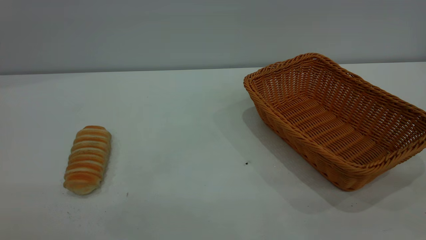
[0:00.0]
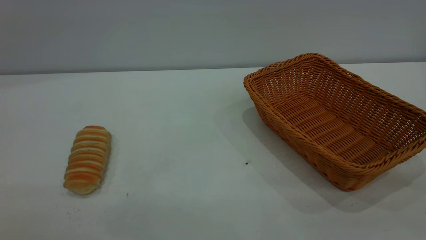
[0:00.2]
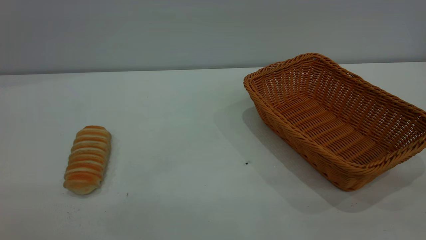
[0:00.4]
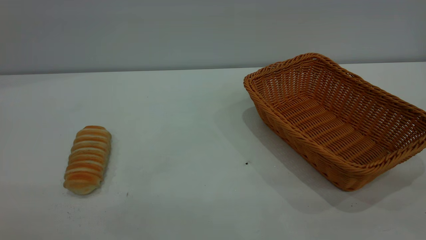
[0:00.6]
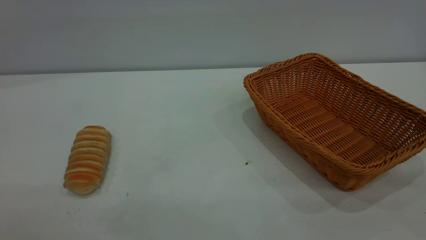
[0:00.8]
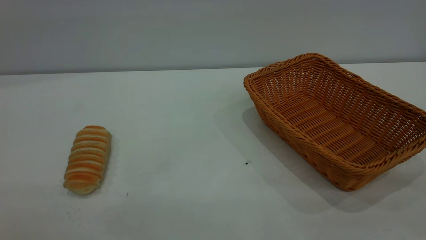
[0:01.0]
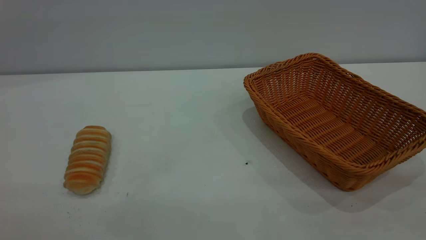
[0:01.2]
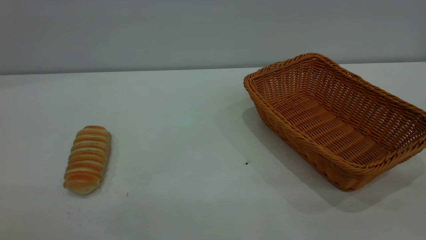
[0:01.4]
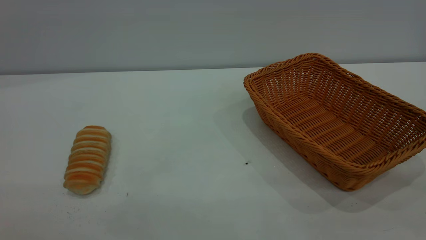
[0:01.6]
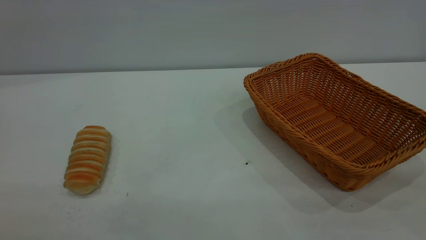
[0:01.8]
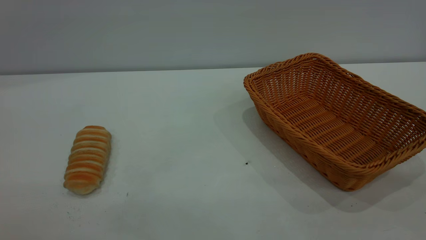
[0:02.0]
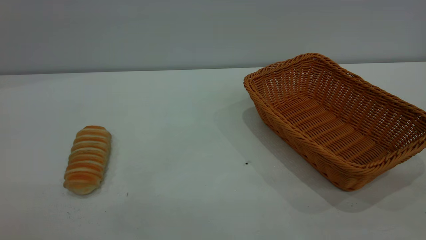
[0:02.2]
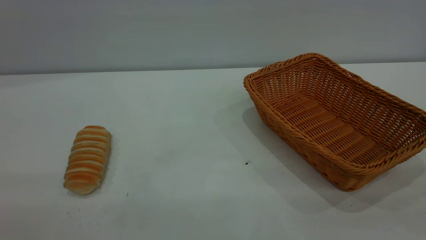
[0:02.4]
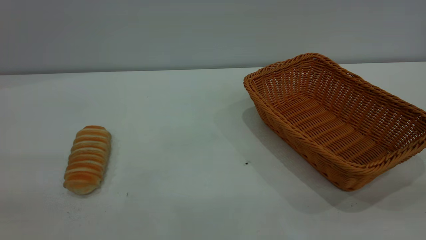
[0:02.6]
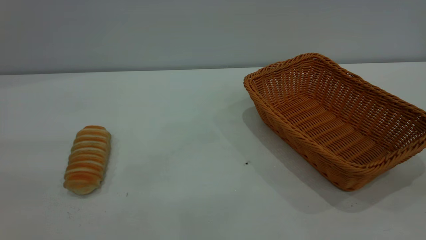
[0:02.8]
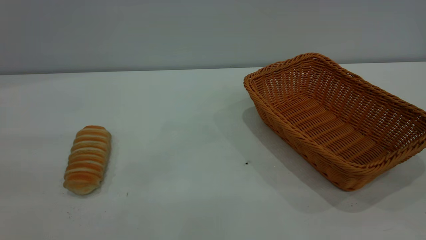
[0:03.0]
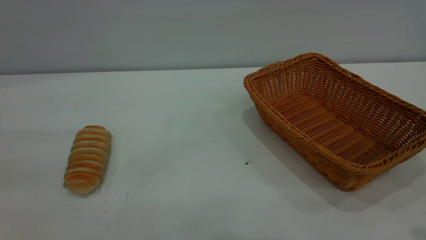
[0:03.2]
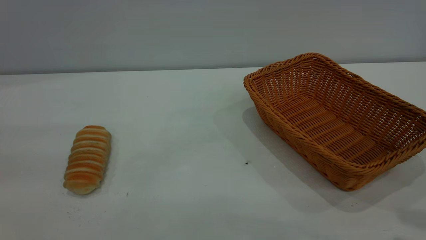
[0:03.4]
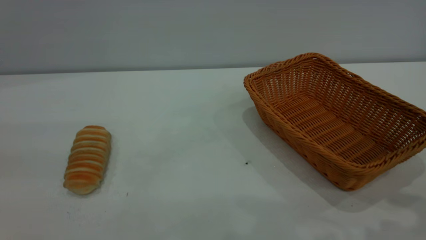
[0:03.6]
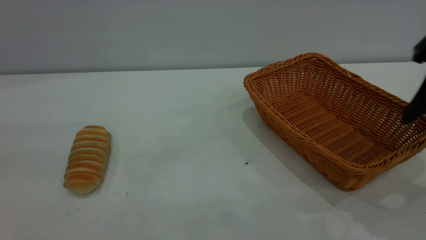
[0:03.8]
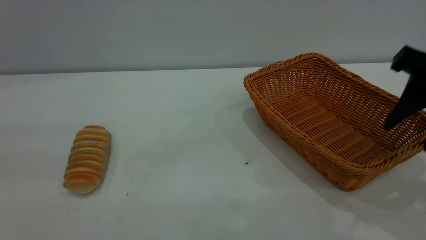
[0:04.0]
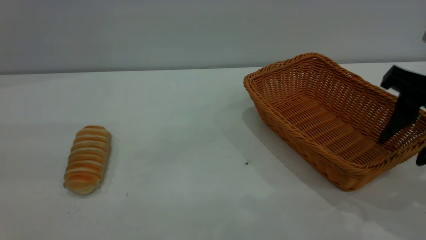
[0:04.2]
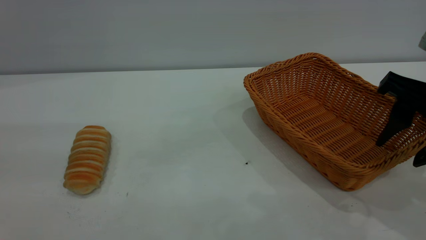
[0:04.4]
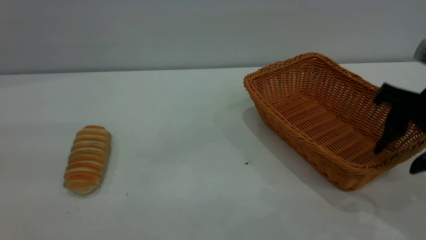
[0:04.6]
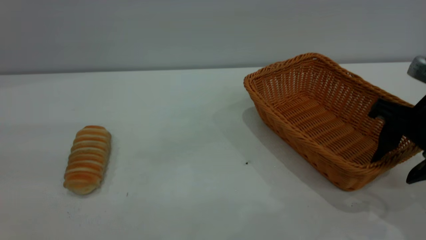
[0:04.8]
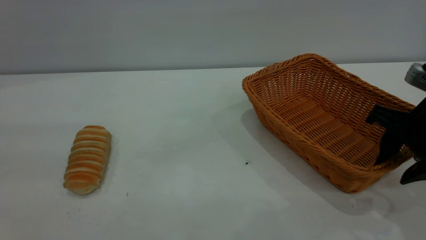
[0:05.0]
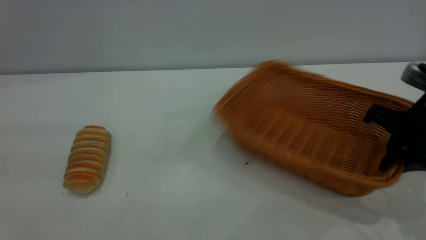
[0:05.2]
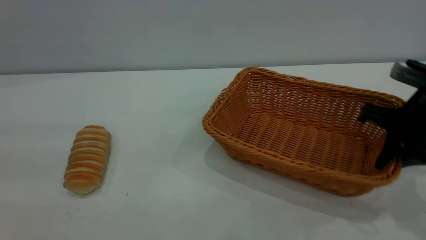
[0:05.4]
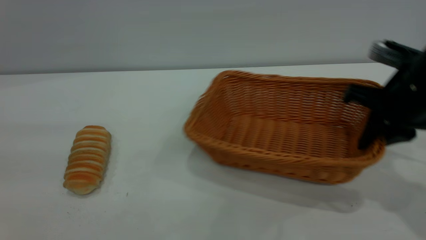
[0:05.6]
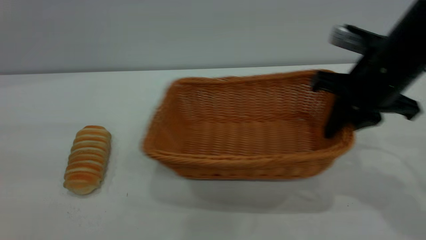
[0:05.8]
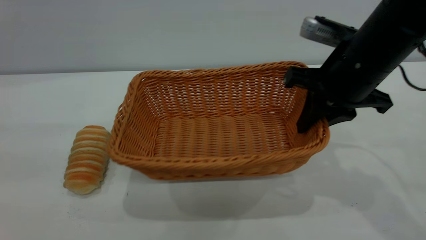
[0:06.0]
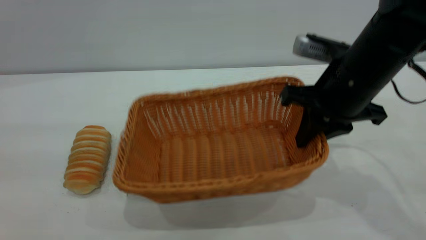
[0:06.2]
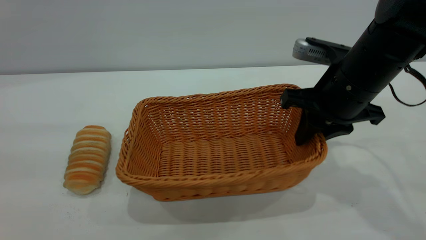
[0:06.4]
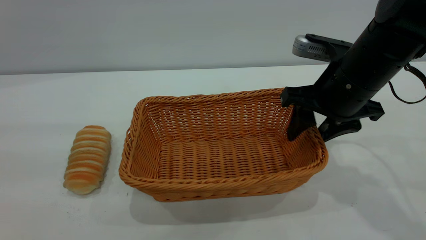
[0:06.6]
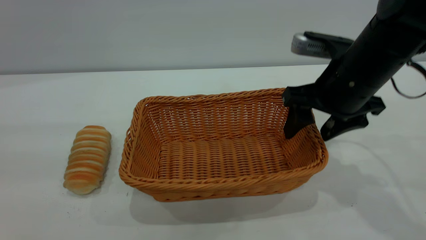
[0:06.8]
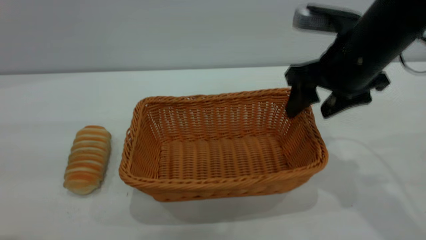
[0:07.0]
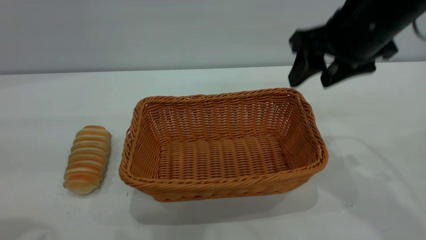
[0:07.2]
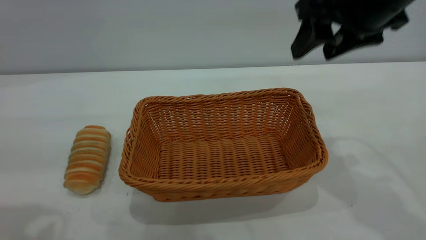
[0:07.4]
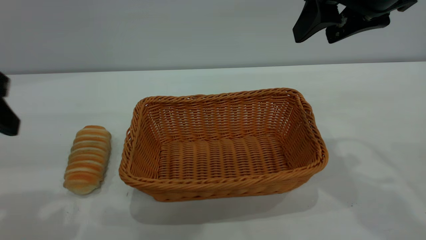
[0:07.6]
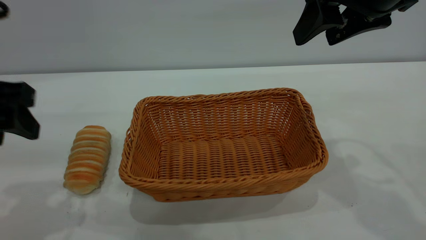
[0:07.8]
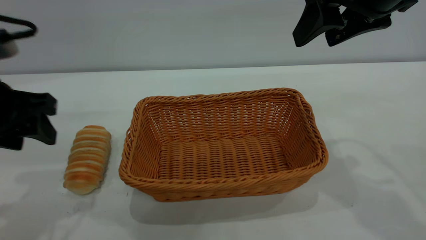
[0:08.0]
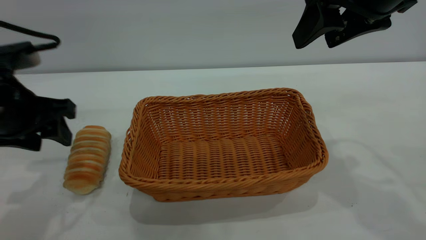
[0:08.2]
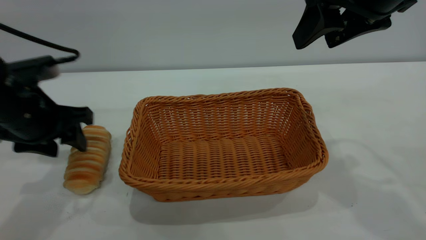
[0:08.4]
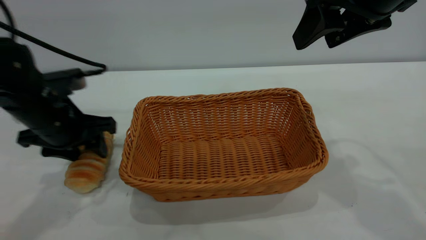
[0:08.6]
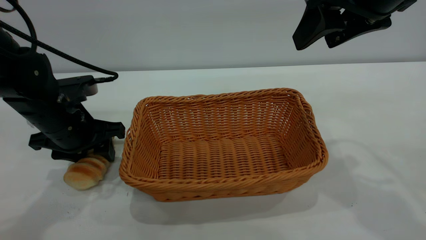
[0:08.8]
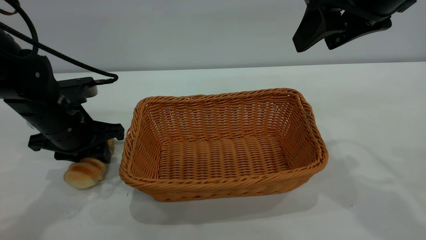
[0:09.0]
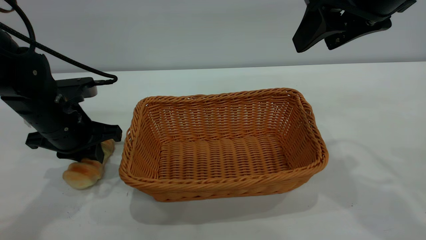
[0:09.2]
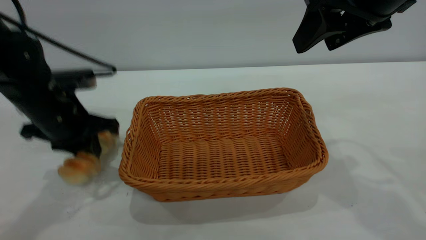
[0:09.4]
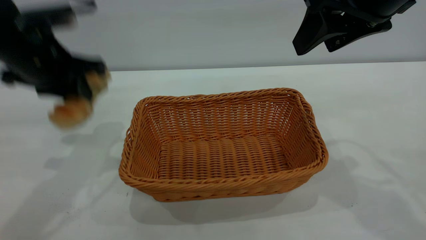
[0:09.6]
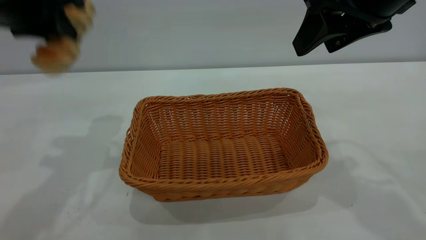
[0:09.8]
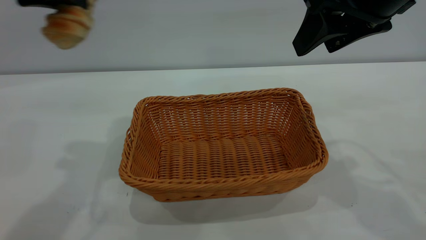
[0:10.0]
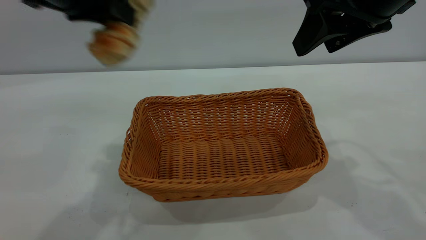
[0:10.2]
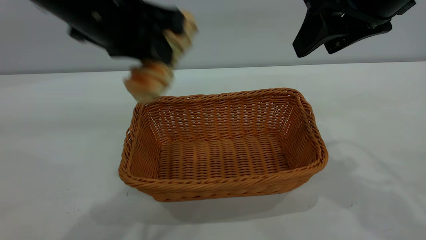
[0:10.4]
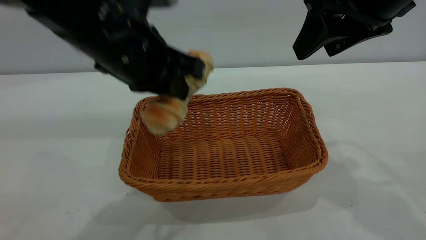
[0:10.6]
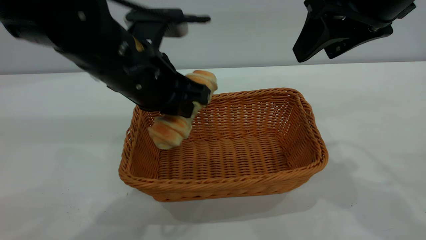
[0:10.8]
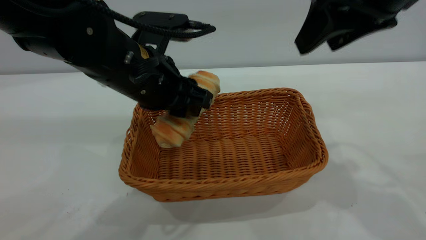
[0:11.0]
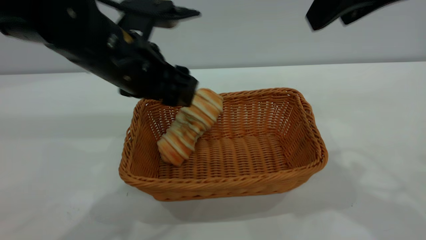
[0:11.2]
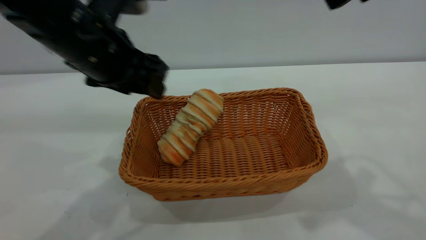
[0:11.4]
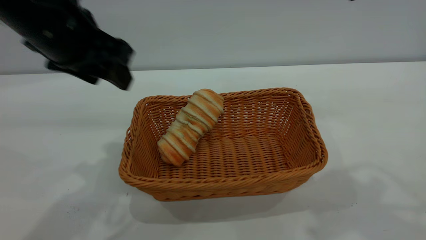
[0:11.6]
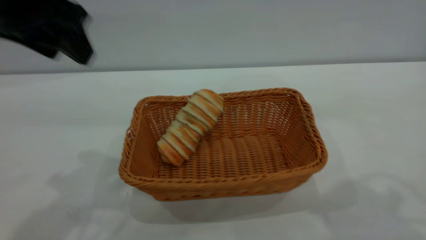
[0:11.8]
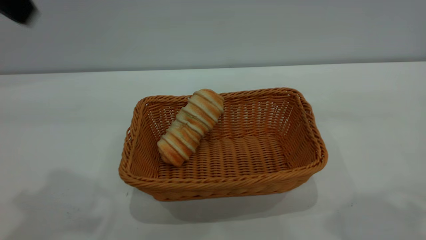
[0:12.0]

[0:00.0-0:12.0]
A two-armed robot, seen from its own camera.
Task of the whole recording: One hand grasps the yellow basket and places it in the middle of the table, while the other hand picks up the long bread and puts it into the yellow basket.
Step, 0:00.0 to 0:07.0: Move the basket to the center of view.
Step, 0:09.8 to 0:11.4: place the bread into the basket.
0:00.0 to 0:01.6: Neither gripper changes place.
0:03.0 to 0:04.4: The right gripper goes roughly 20 cm forward and downward.
0:04.4 to 0:06.0: The right gripper travels to the left and forward by some 10 cm, and closes.
0:06.0 to 0:07.6: The left gripper moves forward and downward, about 15 cm; the right gripper is displaced upward by approximately 10 cm, and opens up.
0:07.6 to 0:09.0: The left gripper moves downward and forward, roughly 20 cm, and closes its fingers.
0:09.0 to 0:10.4: The left gripper travels upward and to the right by some 20 cm, and closes its fingers.
0:10.4 to 0:12.0: The left gripper heads upward, to the left and backward, covering roughly 20 cm, and opens its fingers. Meanwhile the right gripper travels upward and backward by roughly 15 cm.

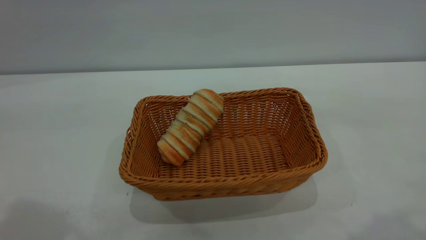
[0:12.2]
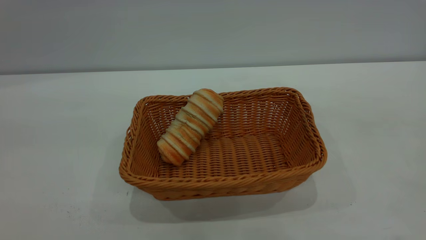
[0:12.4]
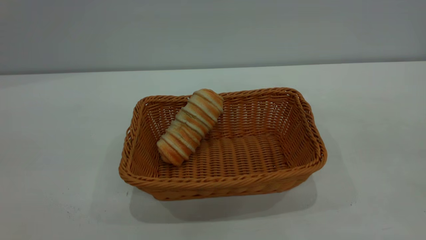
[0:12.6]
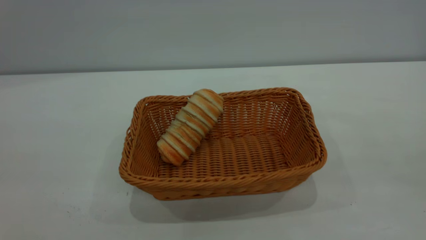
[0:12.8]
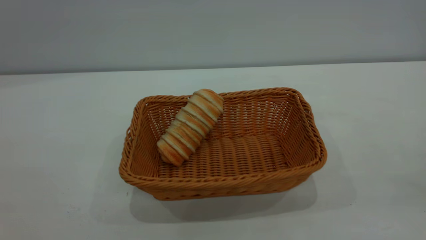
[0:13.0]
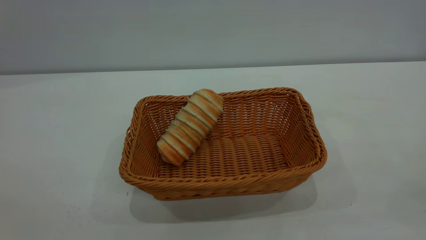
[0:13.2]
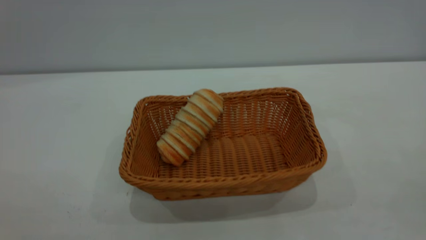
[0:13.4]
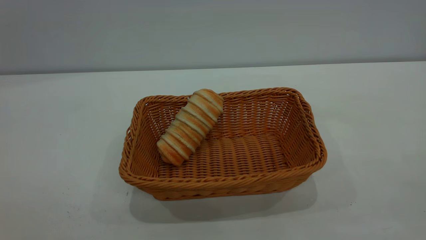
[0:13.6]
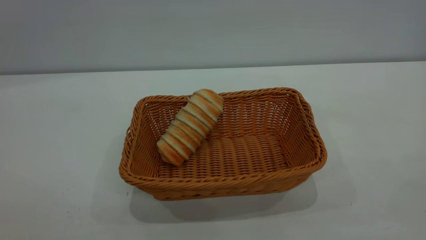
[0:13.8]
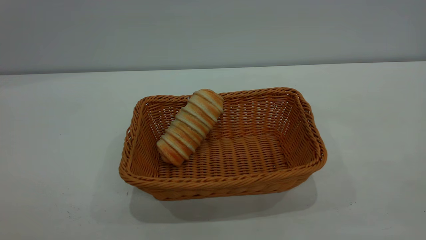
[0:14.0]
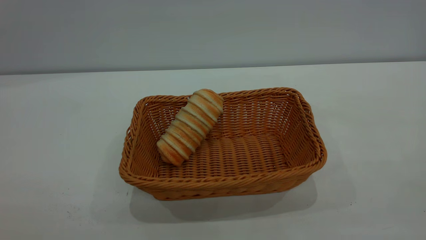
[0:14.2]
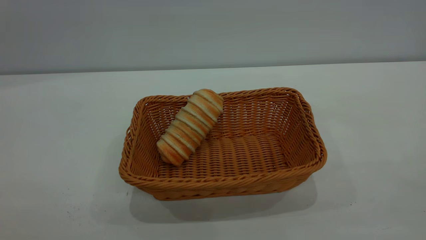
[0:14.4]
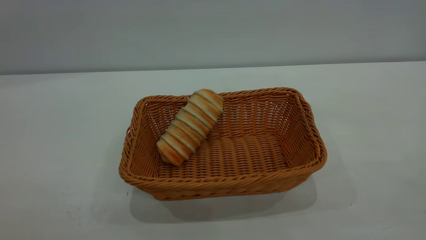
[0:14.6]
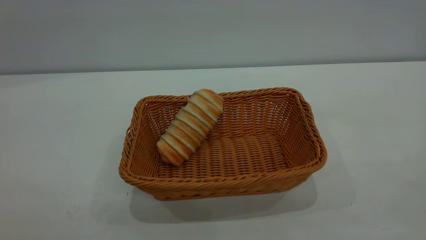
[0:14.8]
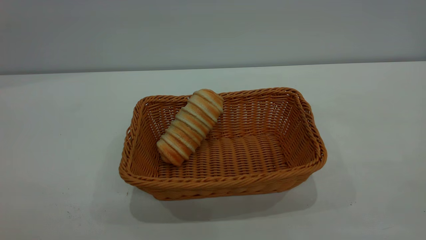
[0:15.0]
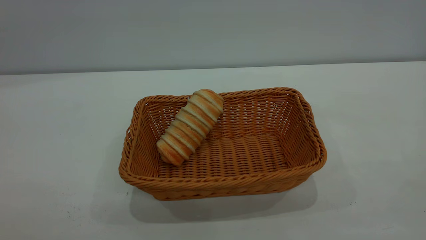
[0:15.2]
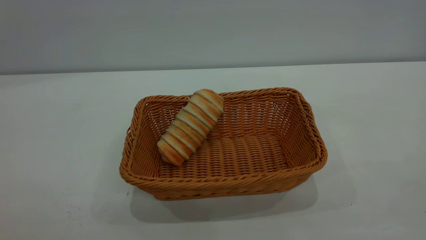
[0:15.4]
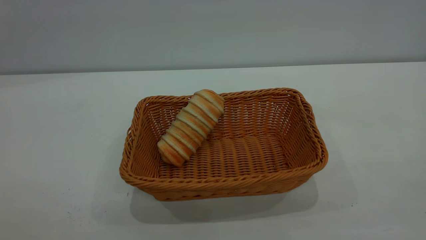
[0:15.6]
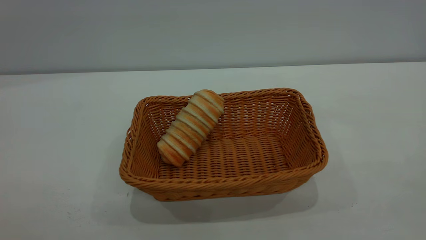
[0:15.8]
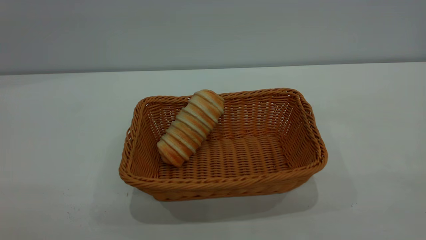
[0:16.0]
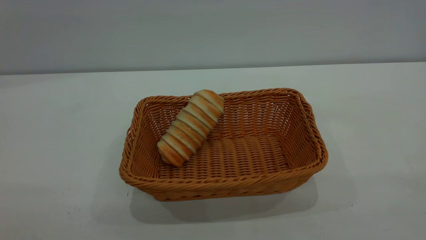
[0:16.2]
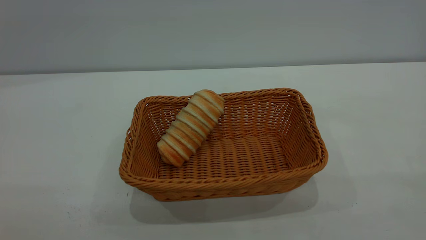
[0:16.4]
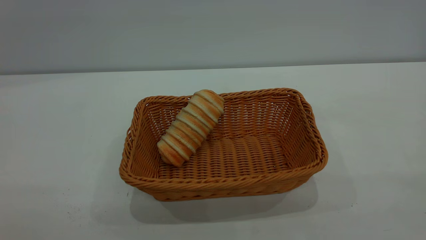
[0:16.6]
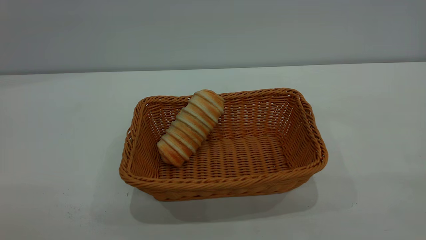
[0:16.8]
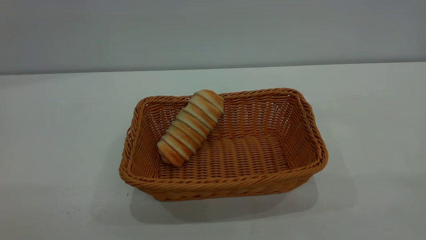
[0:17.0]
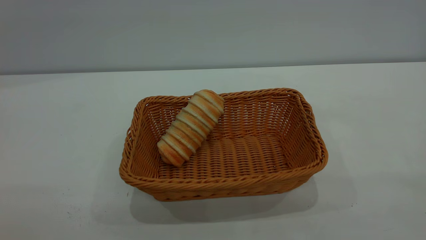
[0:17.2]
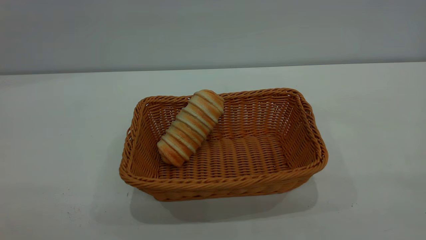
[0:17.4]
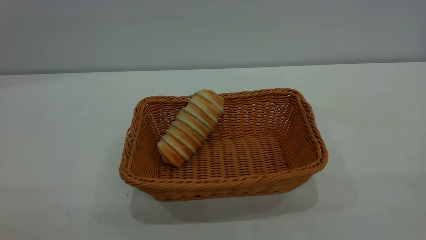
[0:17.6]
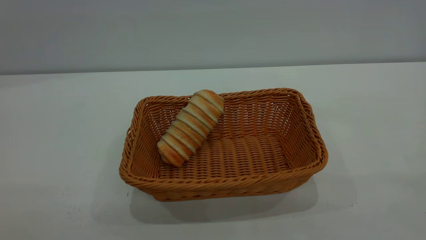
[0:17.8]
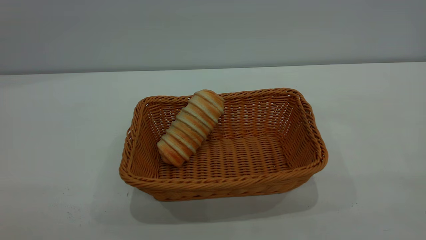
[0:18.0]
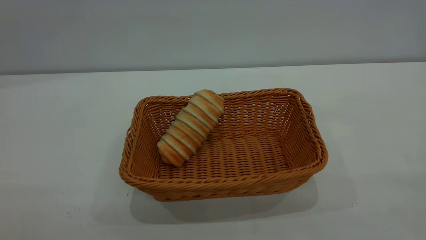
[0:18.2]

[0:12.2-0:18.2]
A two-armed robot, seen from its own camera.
Task of the whole recording: One hand grasps the yellow basket and places it in the middle of the table, while the other hand picks up the long bread and puts it into the yellow basket.
0:16.6 to 0:18.2: Both grippers stay about where they are.
